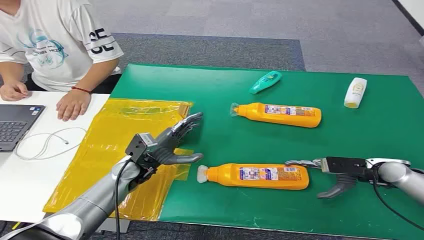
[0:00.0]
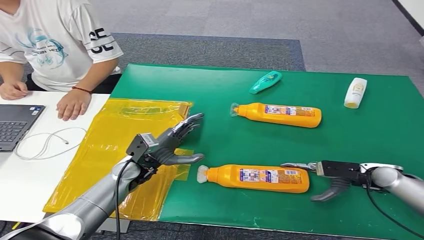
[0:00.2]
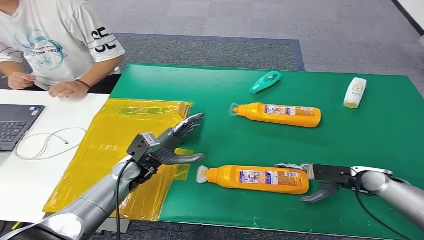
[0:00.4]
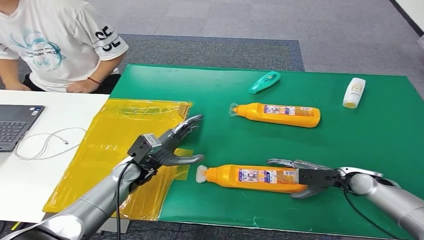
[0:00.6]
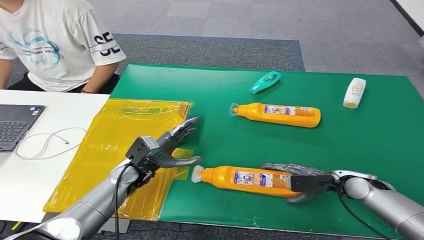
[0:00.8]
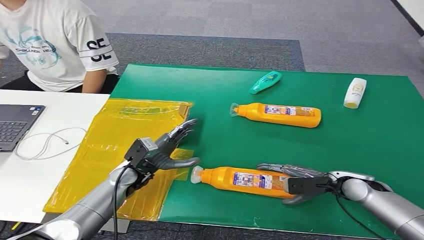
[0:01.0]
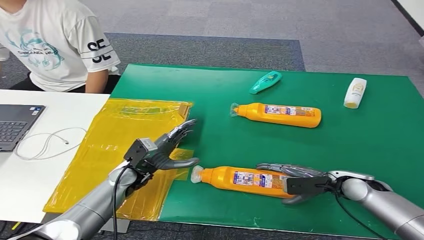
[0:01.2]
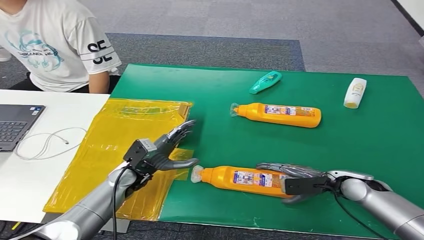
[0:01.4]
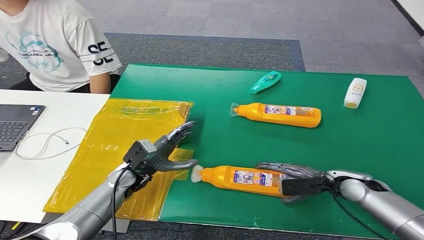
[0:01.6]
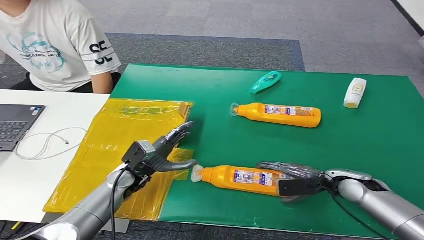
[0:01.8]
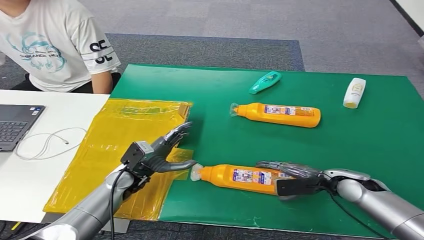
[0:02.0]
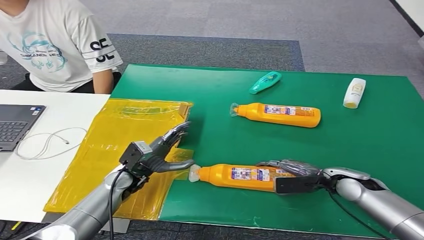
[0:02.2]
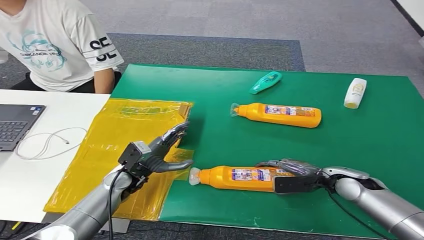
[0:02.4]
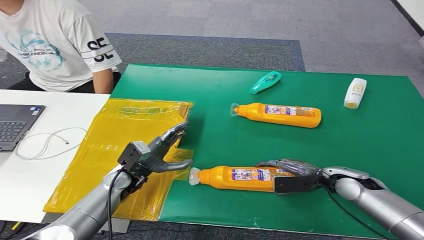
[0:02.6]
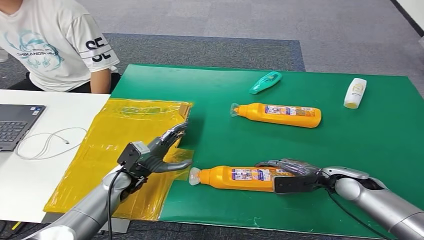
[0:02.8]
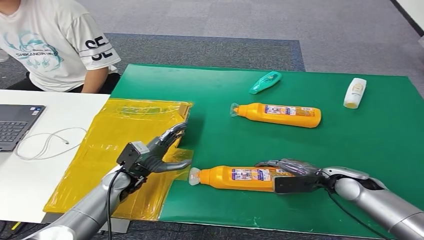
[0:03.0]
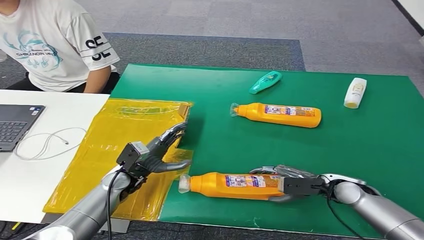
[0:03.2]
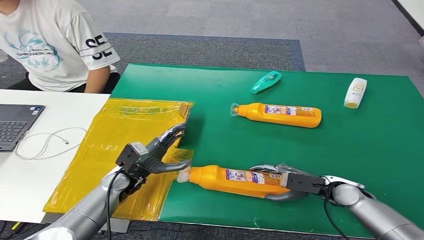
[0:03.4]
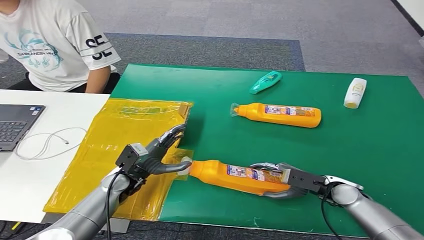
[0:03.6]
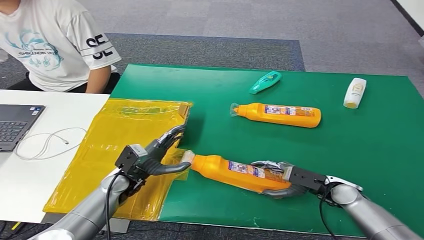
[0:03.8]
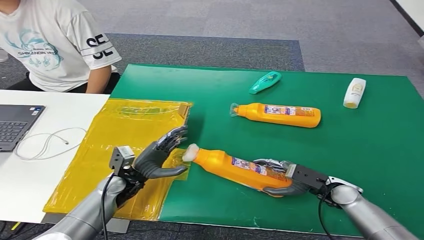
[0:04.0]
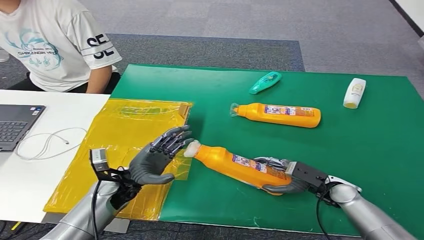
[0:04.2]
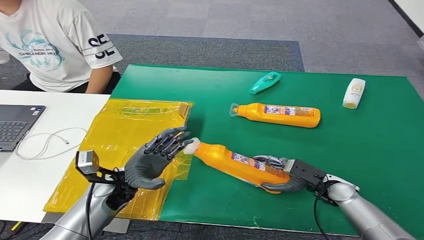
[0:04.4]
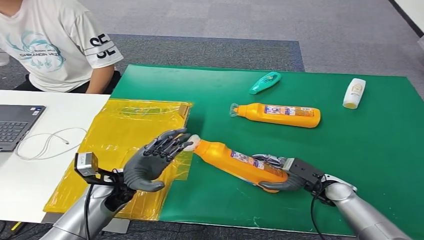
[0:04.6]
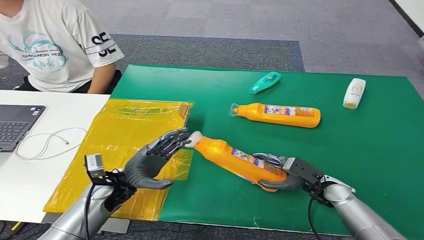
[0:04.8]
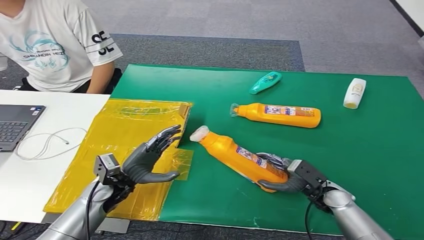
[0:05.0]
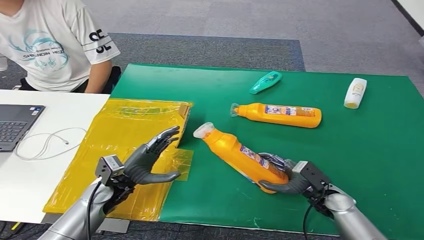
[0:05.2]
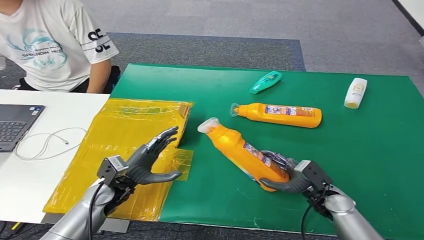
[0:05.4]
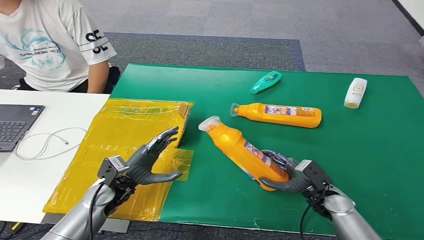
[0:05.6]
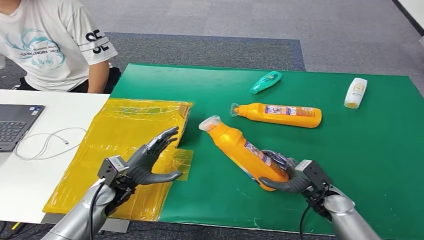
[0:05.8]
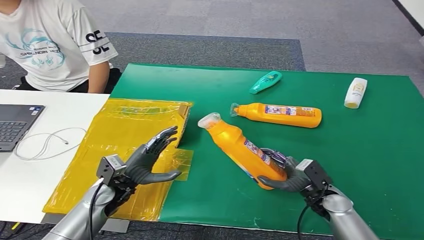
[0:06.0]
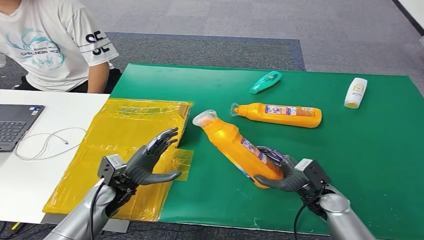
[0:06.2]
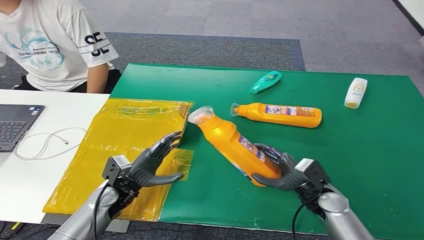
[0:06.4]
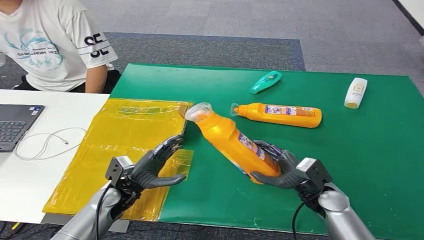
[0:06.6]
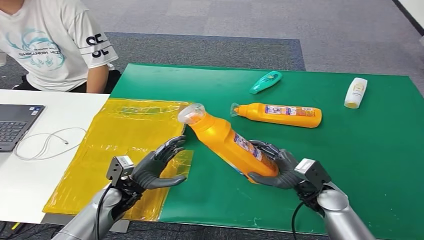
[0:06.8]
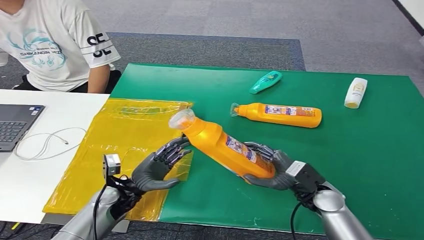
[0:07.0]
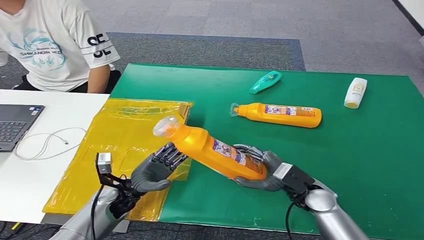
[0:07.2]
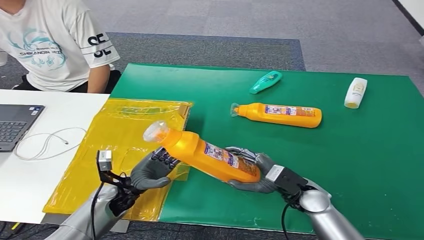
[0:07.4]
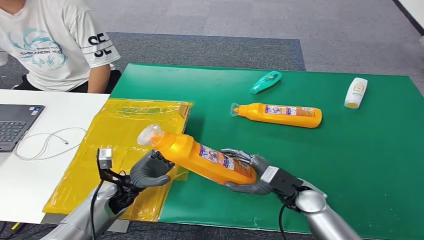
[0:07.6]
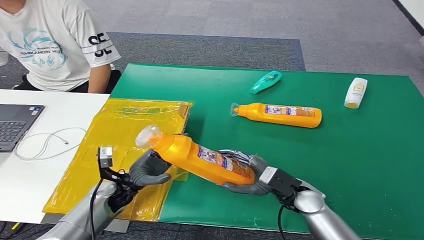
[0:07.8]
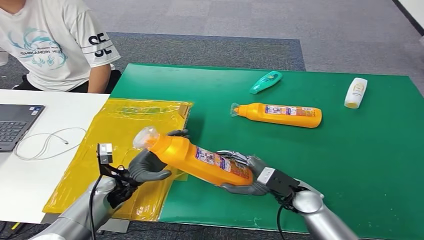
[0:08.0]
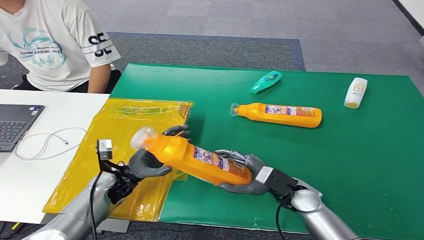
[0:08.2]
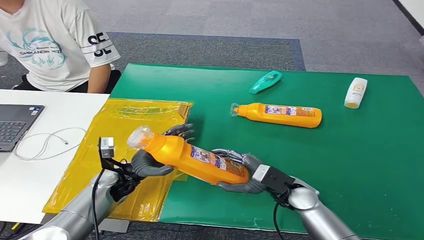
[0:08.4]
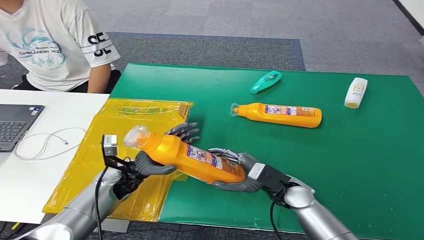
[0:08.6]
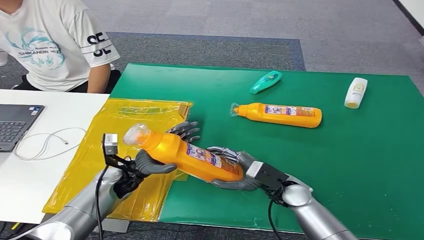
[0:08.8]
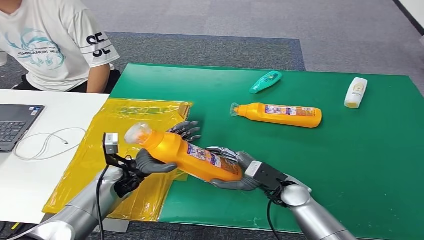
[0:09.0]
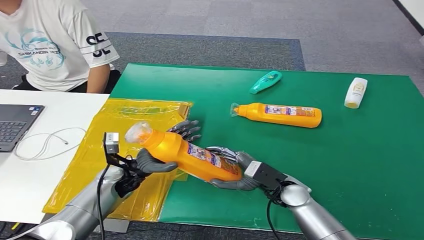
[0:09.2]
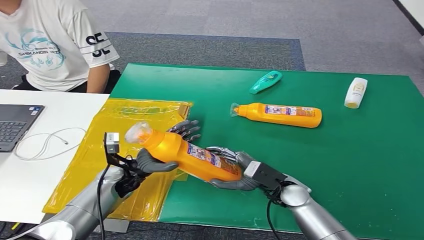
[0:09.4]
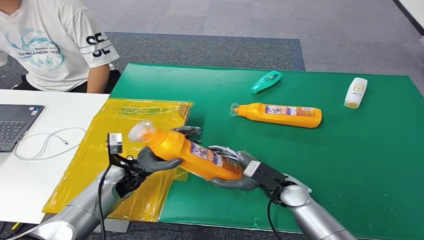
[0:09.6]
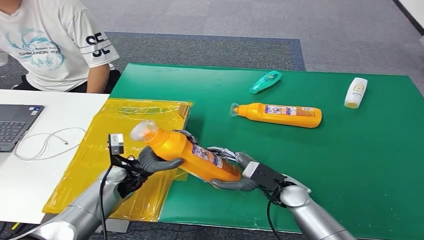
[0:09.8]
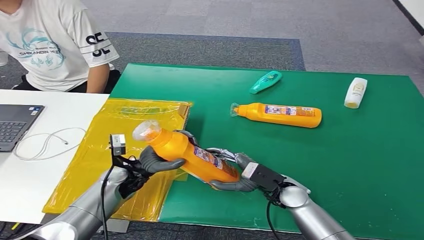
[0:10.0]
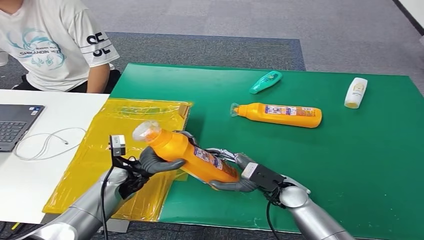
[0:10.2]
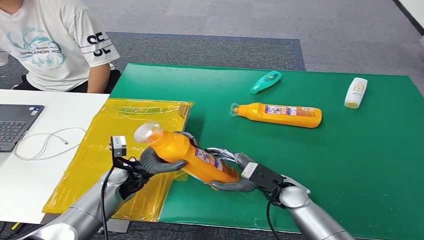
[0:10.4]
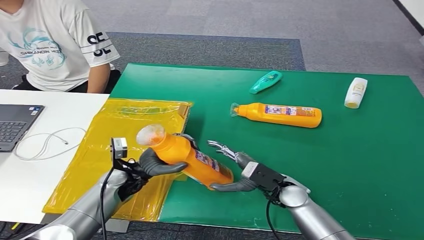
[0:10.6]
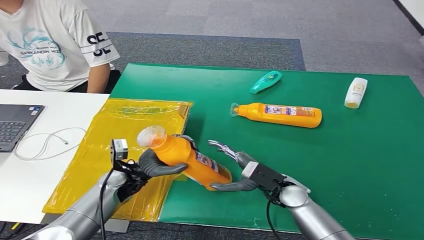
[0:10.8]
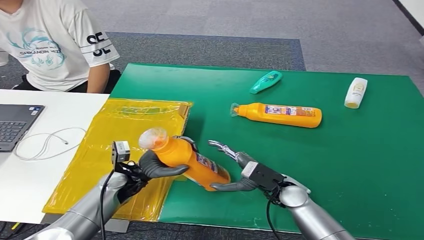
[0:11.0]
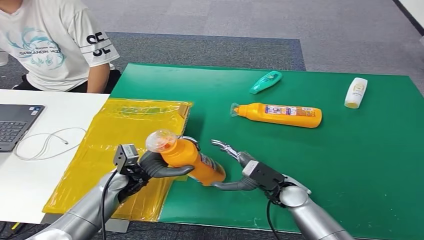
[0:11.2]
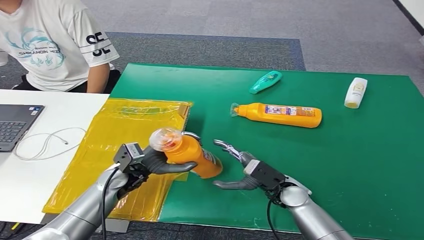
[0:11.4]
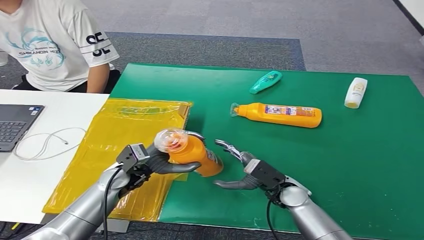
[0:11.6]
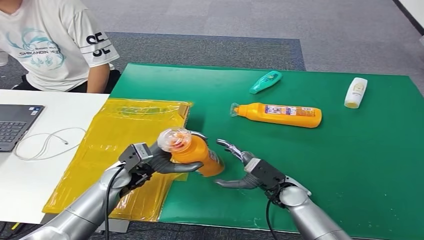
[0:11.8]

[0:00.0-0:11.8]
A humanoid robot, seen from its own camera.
Step, 0:00.0 to 0:05.6: Pick up the bottle from the table.
0:01.4 to 0:03.0: The hands move only a little.
0:03.0 to 0:04.4: The right hand changes place by roughly 5 cm.
0:06.0 to 0:07.4: The right hand moves to the left, some 5 cm.
0:07.4 to 0:08.8: The left hand moves approximately 5 cm.
0:08.8 to 0:10.4: The hands move only a little.

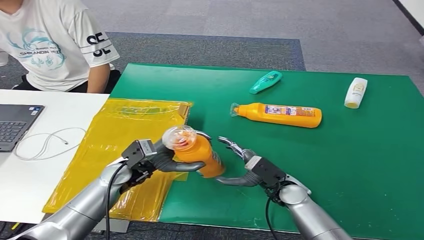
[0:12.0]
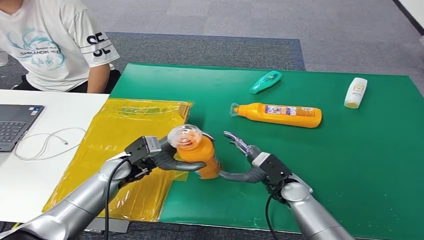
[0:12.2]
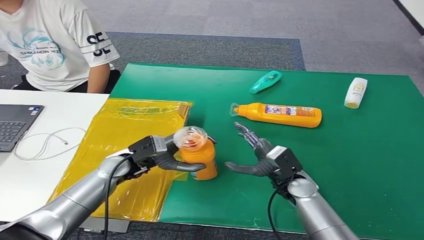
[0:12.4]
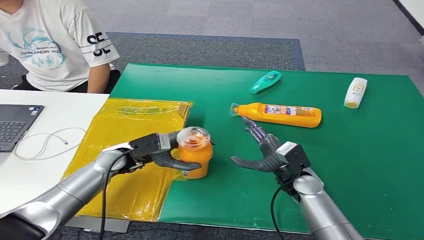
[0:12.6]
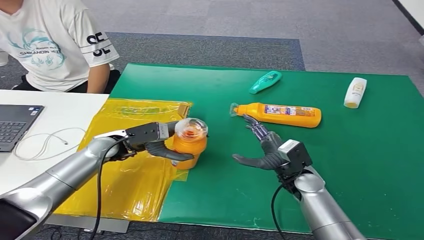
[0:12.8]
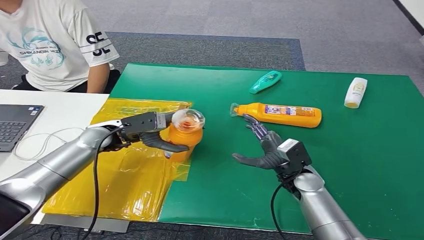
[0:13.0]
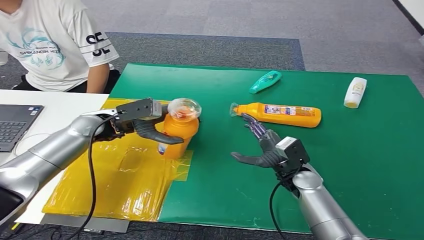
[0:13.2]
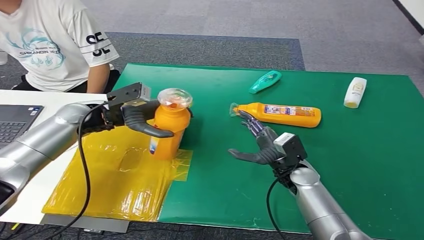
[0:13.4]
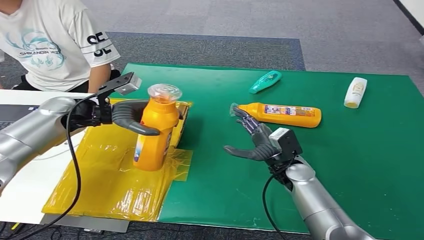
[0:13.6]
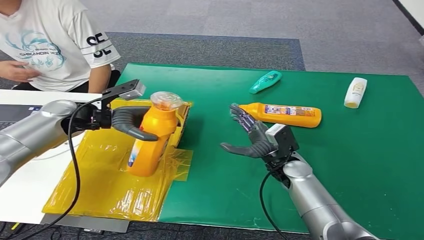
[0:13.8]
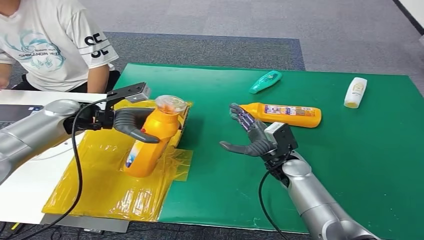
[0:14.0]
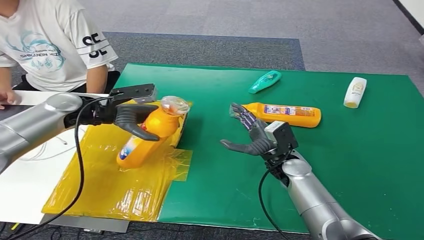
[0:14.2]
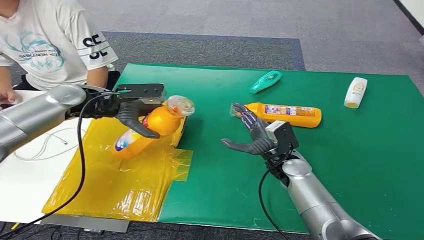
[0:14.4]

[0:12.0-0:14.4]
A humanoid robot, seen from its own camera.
Step, 0:12.0 to 0:14.4: Turn the bottle to the front side.
